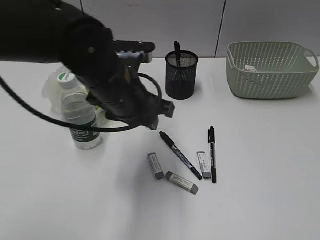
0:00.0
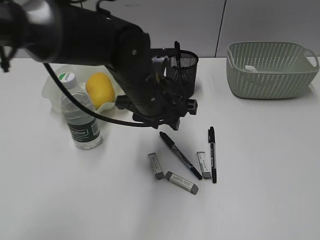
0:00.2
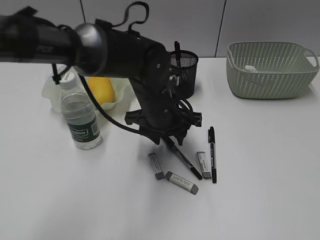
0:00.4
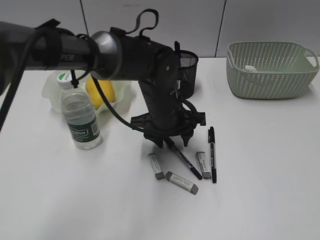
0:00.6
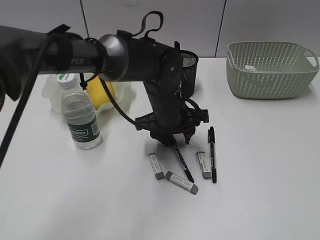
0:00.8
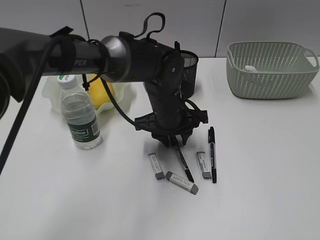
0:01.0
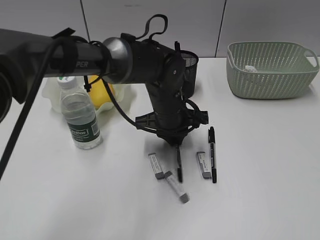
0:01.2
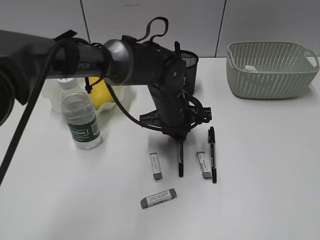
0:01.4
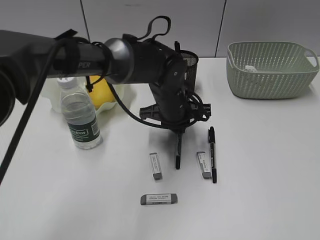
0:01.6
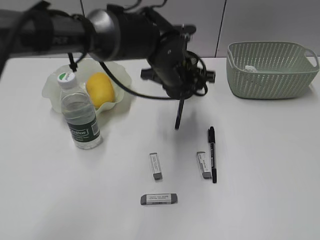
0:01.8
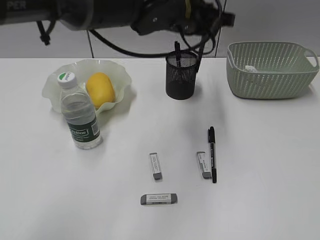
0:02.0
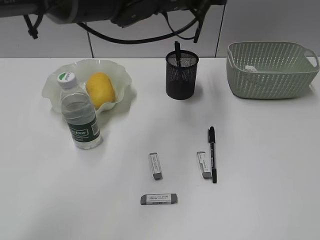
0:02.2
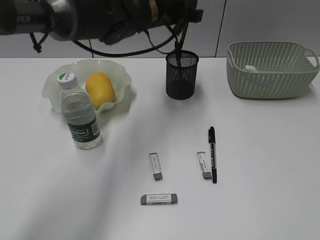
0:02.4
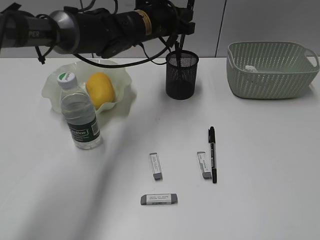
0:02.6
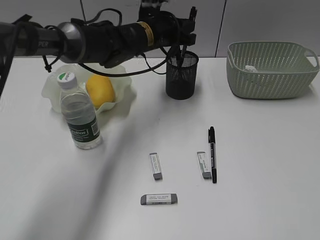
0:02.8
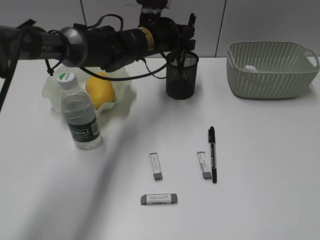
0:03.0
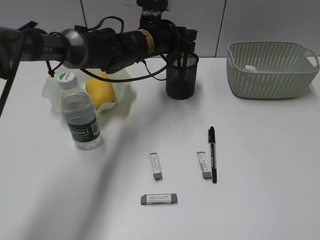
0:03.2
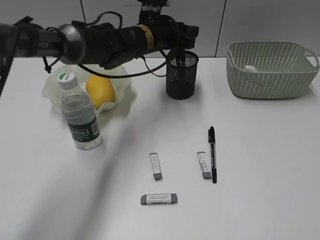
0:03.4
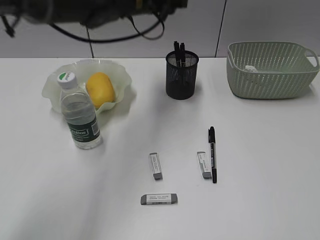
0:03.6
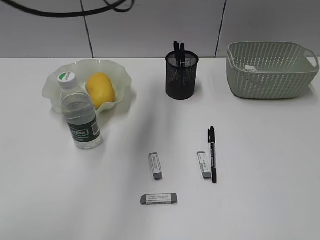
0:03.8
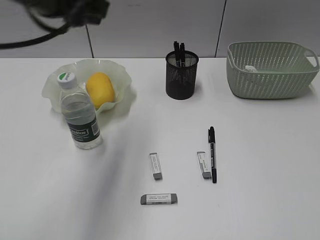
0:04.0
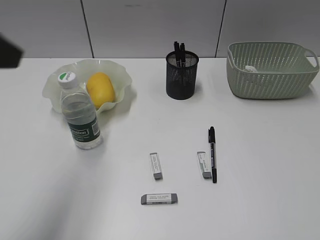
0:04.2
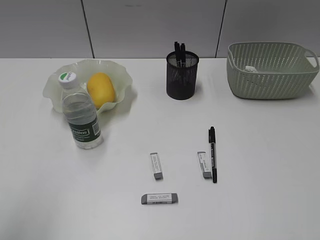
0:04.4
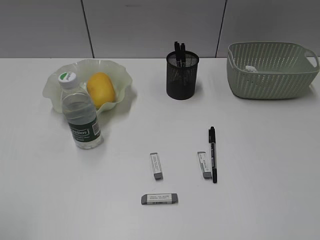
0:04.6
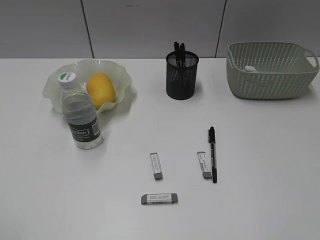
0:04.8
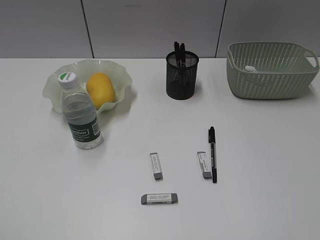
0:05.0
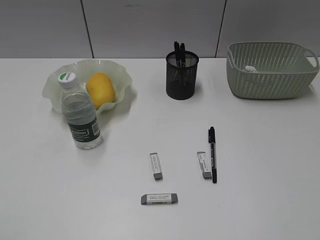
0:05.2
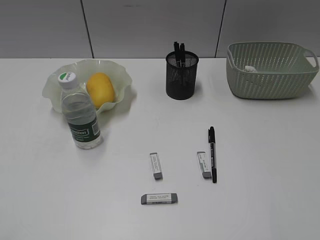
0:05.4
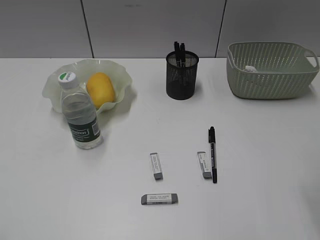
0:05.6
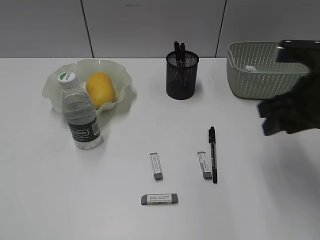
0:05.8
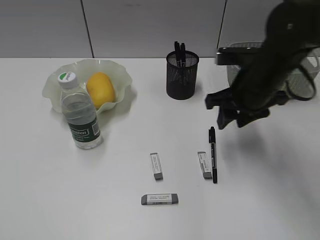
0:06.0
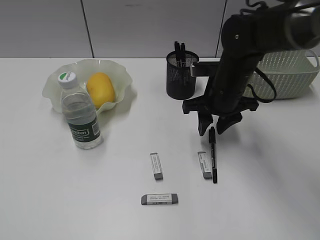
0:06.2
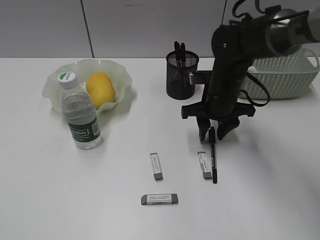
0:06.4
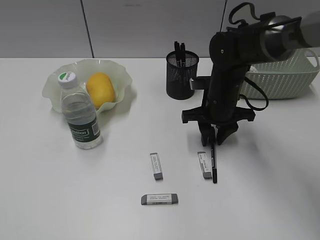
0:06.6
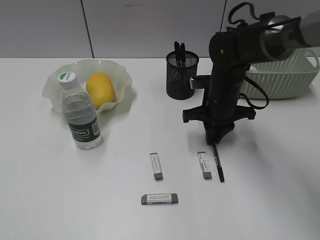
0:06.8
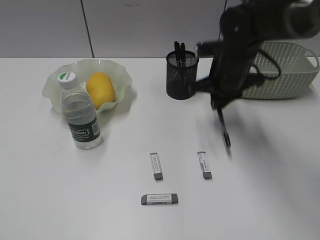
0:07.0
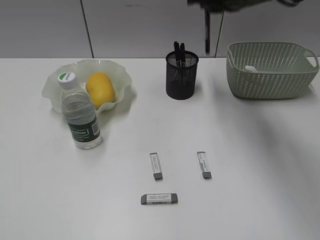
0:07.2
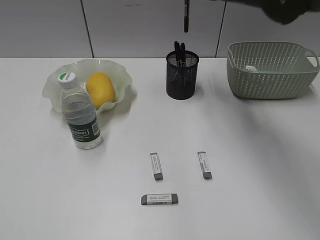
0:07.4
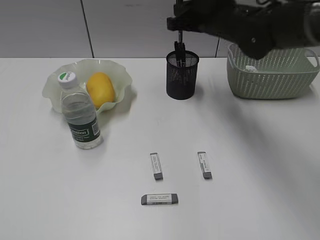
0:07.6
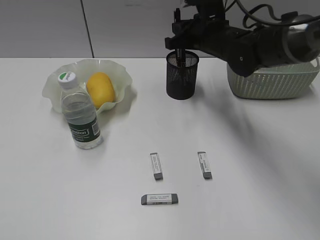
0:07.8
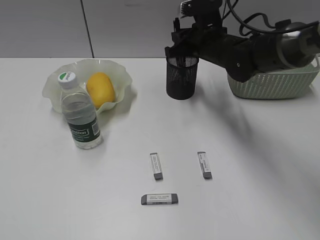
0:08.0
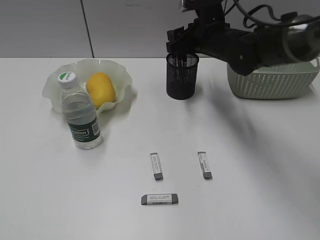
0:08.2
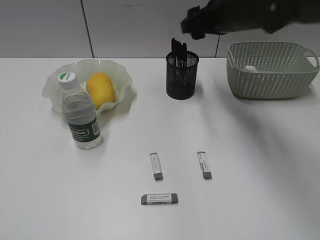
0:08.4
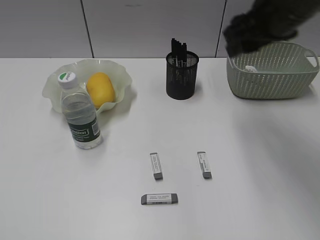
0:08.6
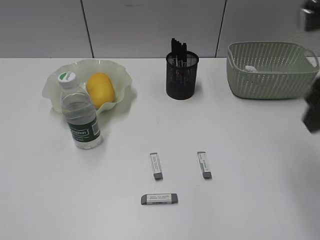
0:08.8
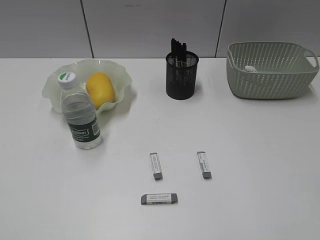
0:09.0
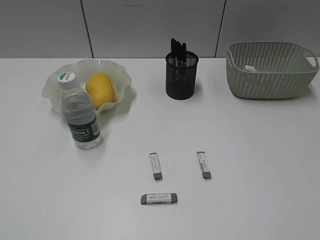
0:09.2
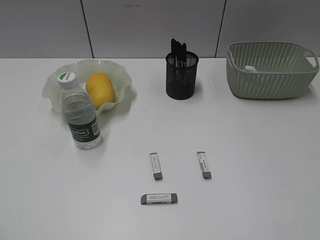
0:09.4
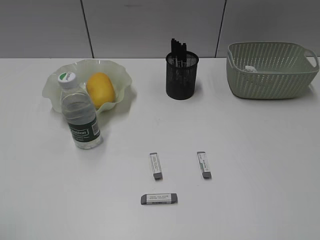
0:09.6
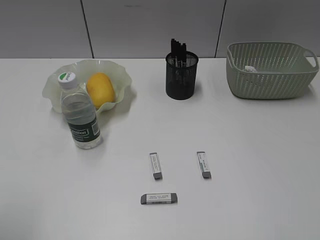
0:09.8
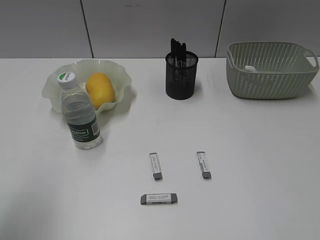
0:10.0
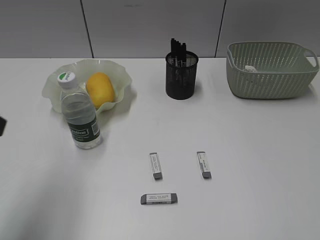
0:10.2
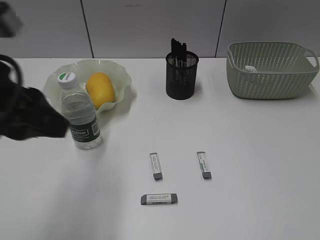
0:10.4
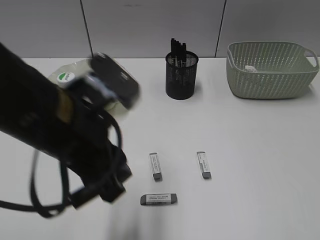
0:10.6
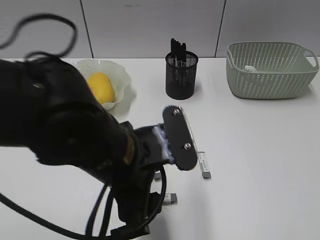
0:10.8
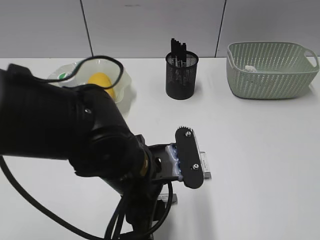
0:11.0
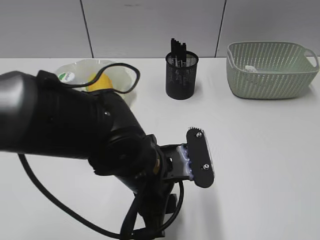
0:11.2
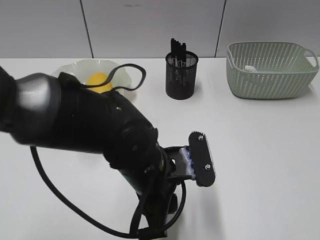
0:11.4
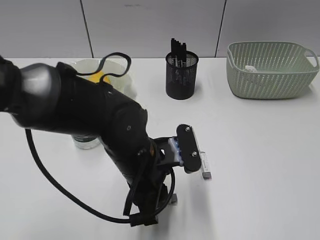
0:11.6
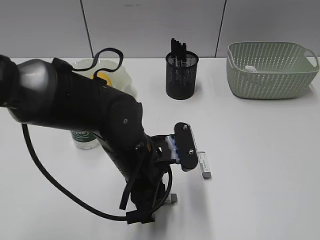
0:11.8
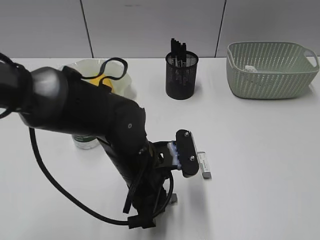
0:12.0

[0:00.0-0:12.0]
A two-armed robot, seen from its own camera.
Step, 0:01.4 to 0:03.4: Place the black pen in pen holder with left gripper.
Step, 0:03.6 to 0:06.8: Grasp the black pen with right gripper.
Step, 0:07.0 to 0:08.4: Place the black pen in pen holder with right gripper.
0:00.0 to 0:01.6: The left gripper shifts about 15 cm downward, to the right and forward, and closes up.
0:01.6 to 0:03.0: The left gripper shifts some 10 cm forward, and reaches about 15 cm upward, then returns.
0:03.0 to 0:04.4: The left gripper is displaced backward, to the left and upward by some 50 cm.
0:04.4 to 0:06.0: The right gripper shifts about 35 cm forward and to the left. Meanwhile the left gripper shifts some 10 cm backward and to the left.
0:06.0 to 0:07.6: The right gripper goes up and down, about 20 cm each way, reversing 2 times, and closes its fingers.
0:07.6 to 0:09.0: The right gripper goes roughly 35 cm backward and to the right, and opens.
0:09.0 to 0:10.4: The right gripper travels backward by approximately 10 cm. The left gripper heads forward and to the right, covering roughly 25 cm.
0:10.4 to 0:12.0: The left gripper moves downward and to the right, about 25 cm, and opens, then closes once more.

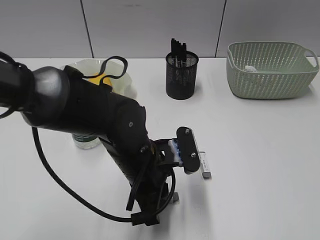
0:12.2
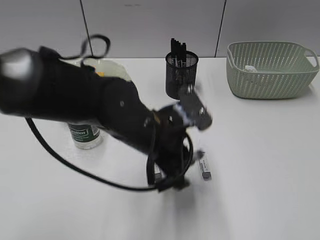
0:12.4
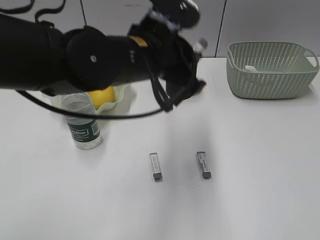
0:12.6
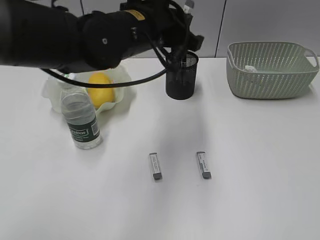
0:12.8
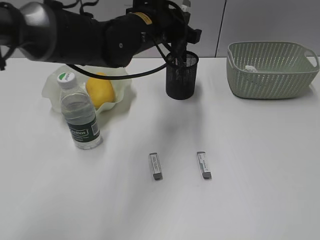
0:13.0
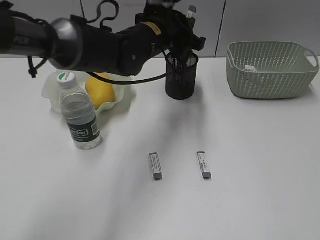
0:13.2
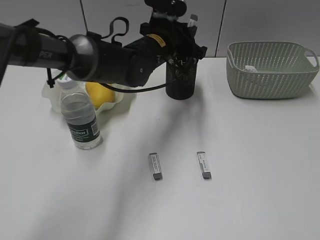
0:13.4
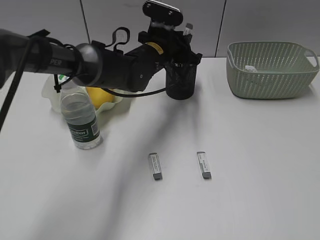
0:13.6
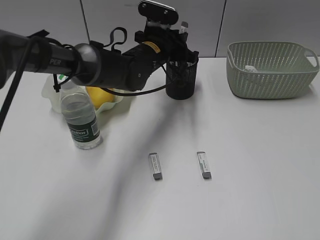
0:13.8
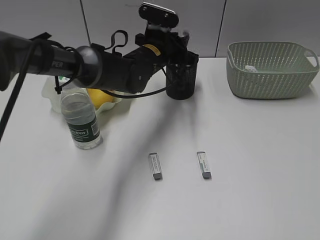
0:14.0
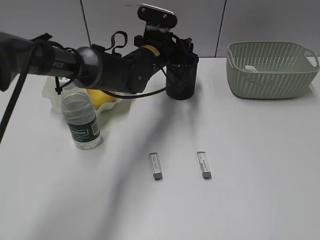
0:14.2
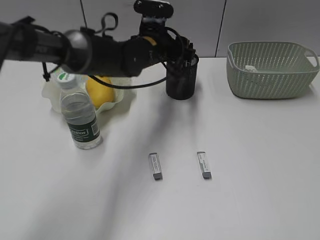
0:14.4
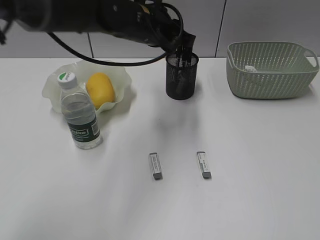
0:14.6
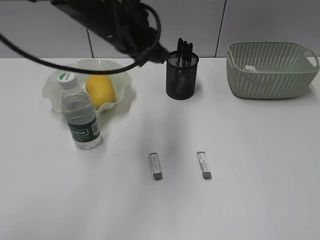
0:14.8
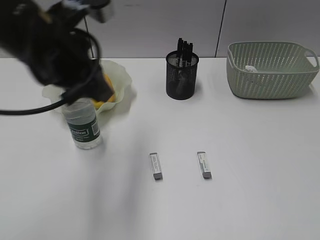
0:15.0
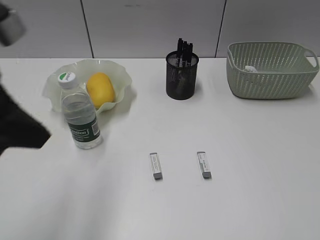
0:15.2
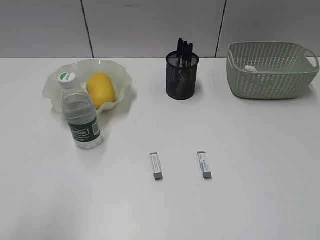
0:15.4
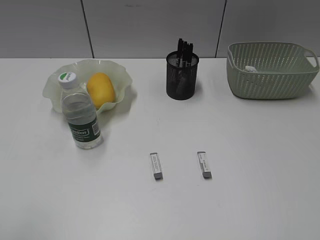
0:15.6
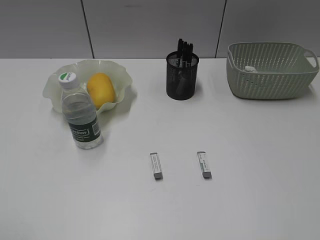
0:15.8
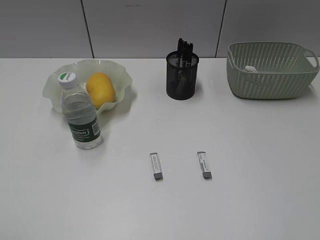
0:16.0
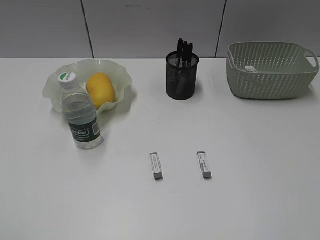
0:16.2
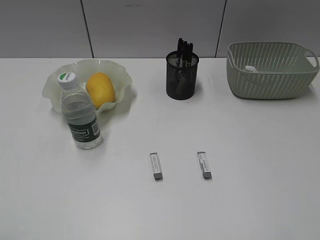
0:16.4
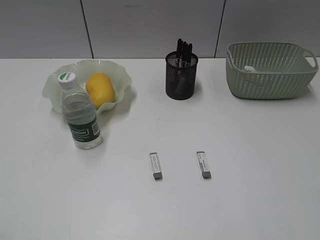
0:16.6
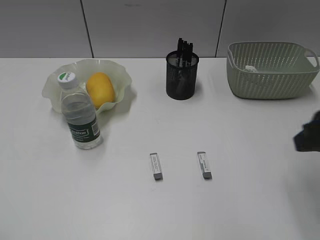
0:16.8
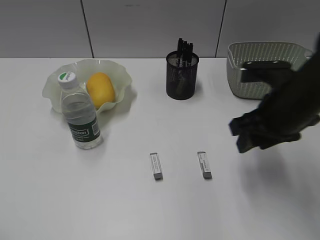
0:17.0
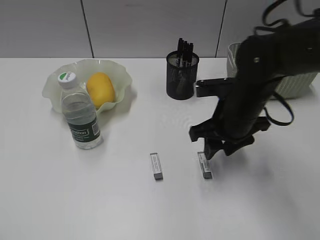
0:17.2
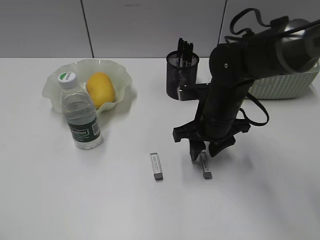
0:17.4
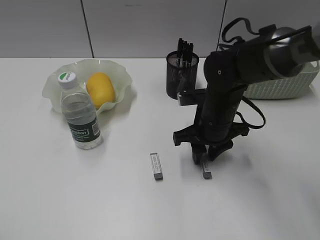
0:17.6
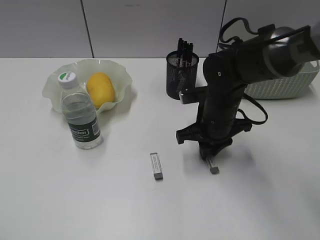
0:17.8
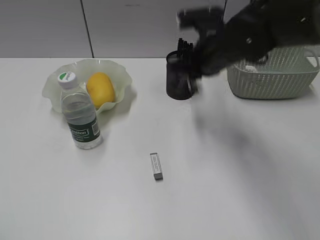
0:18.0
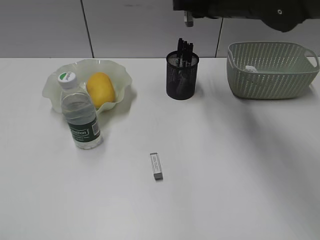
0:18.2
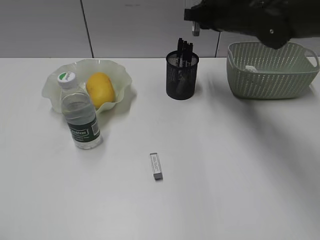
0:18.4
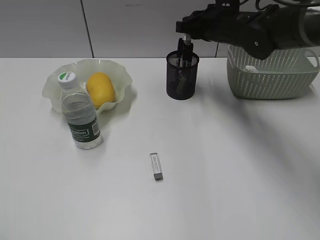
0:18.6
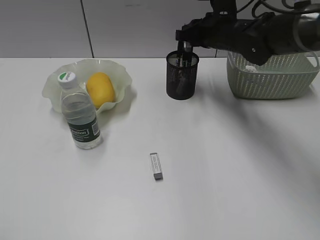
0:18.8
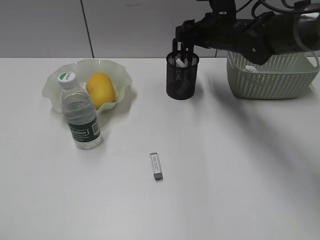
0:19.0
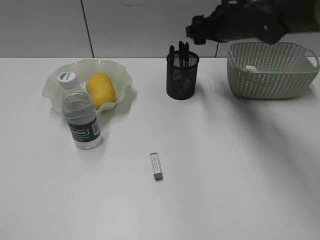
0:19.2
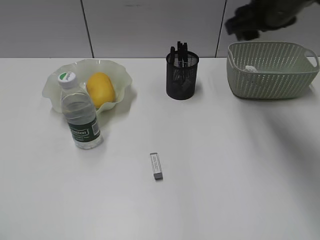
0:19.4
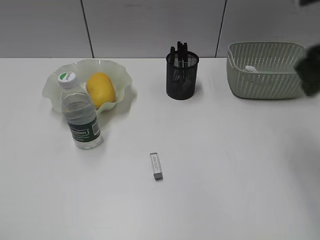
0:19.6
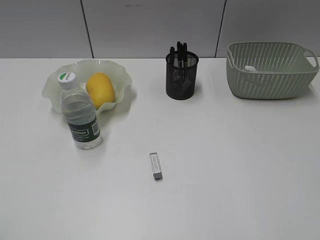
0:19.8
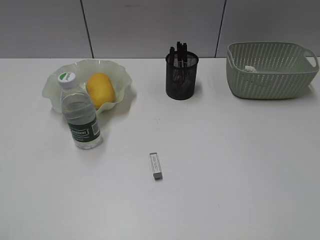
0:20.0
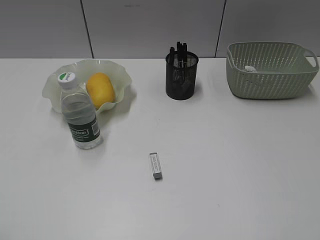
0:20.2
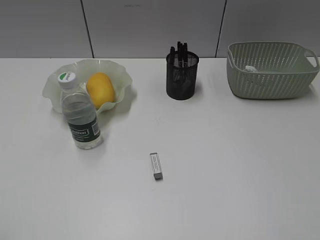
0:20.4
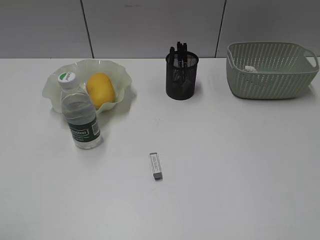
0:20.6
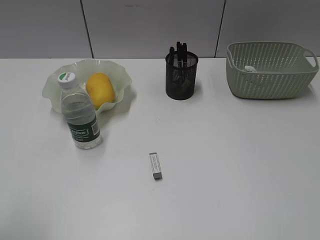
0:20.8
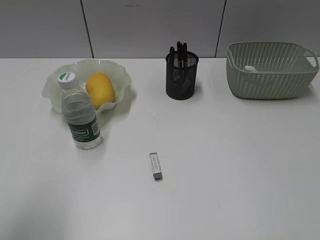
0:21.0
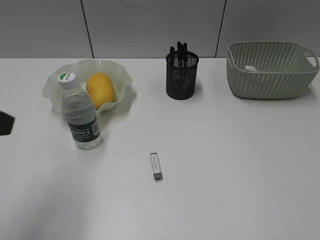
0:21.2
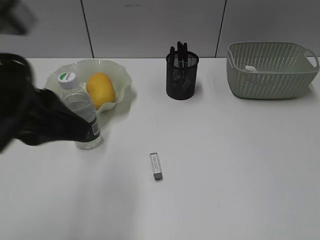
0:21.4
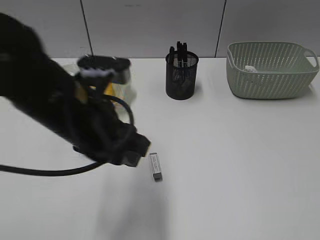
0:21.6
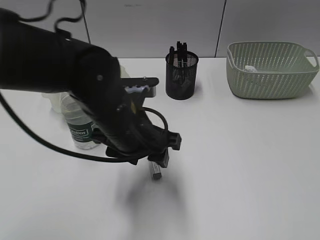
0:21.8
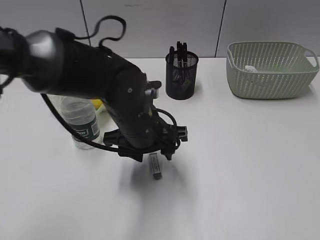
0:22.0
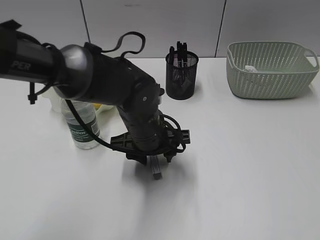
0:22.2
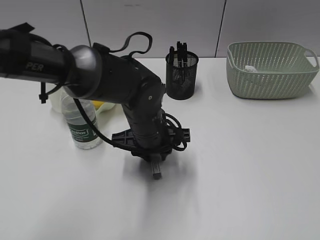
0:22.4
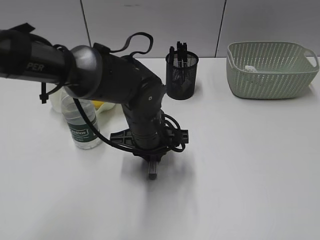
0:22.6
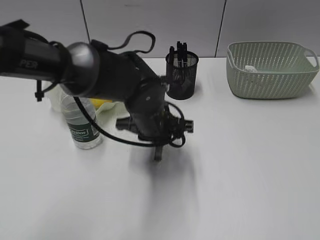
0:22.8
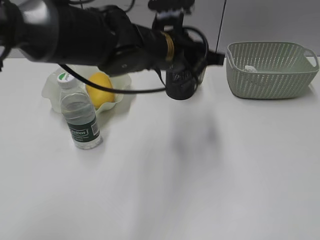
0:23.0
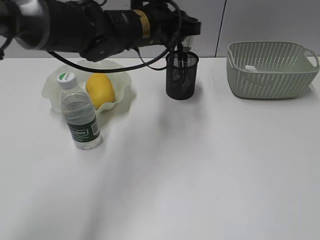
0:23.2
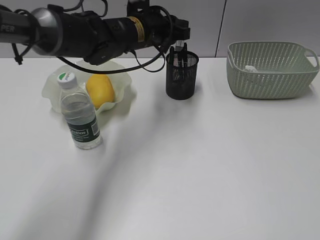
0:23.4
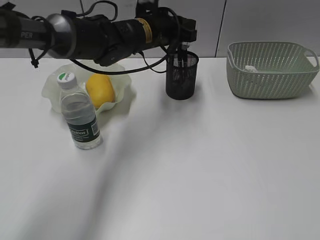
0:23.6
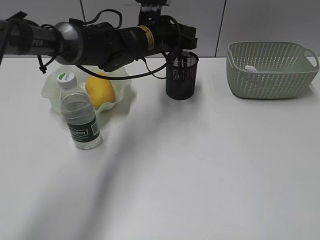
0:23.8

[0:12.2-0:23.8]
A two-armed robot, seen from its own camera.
Step, 0:12.4 to 0:14.2: Place the eraser in pen holder with left gripper.
Step, 0:14.4 to 0:17.6: Grasp the eraser with right gripper.
Step, 0:17.8 to 0:19.2: Place the eraser in pen holder with right gripper.
Step, 0:19.4 to 0:22.6: Grasp the eraser with left gripper.
0:12.2 to 0:13.6: The left gripper moves forward, roughly 20 cm.
0:13.6 to 0:15.0: The left gripper travels backward, to the left and upward by about 25 cm, and opens, then closes once more.
0:15.0 to 0:16.6: The left gripper goes approximately 30 cm backward and to the left. The right gripper travels forward by roughly 10 cm.
0:16.6 to 0:18.0: The right gripper moves forward and to the left, roughly 35 cm, and closes its fingers.
0:18.0 to 0:19.4: The right gripper goes up and down, roughly 10 cm each way, reversing 2 times, and opens its fingers.
0:19.4 to 0:21.0: The left gripper goes roughly 15 cm forward and to the right, and opens its fingers. The right gripper is displaced backward by about 35 cm.
0:21.0 to 0:22.4: The left gripper moves to the right, forward and downward, roughly 35 cm, and opens, then closes once more.
0:22.4 to 0:23.8: The left gripper travels forward and upward by roughly 15 cm.
